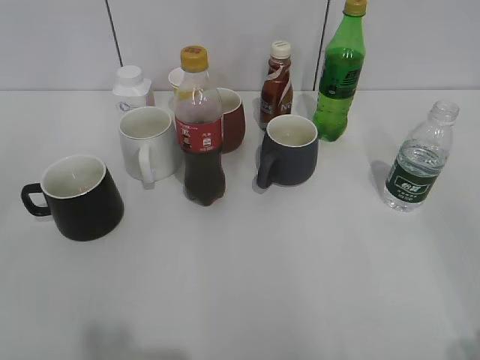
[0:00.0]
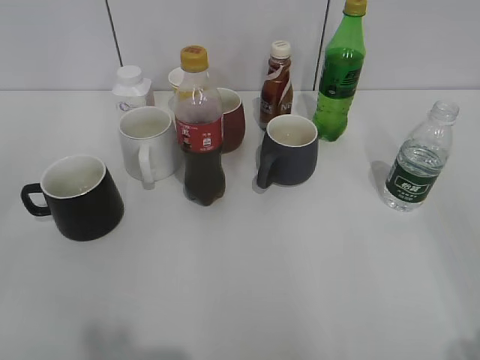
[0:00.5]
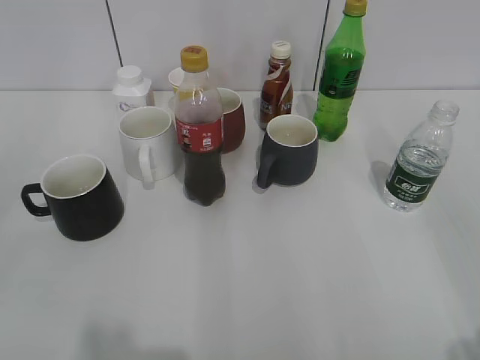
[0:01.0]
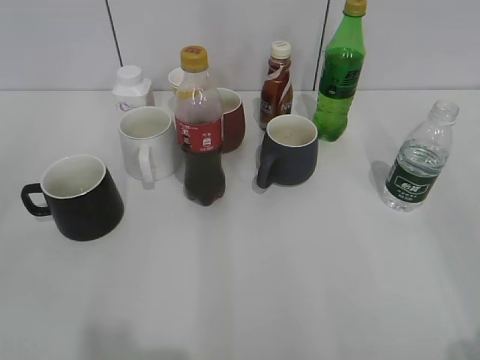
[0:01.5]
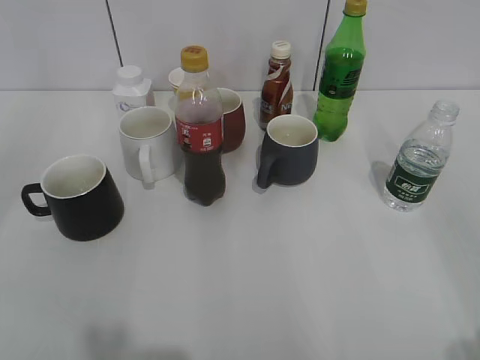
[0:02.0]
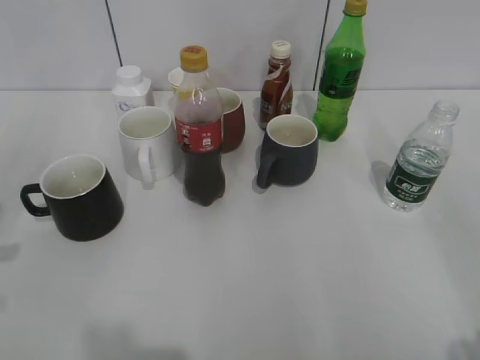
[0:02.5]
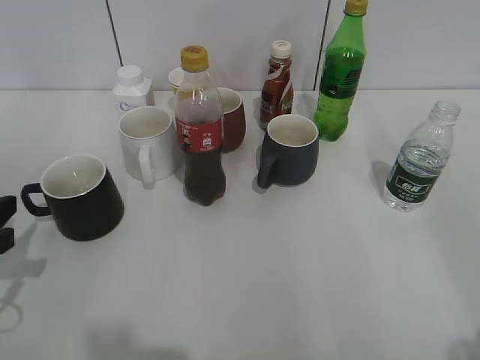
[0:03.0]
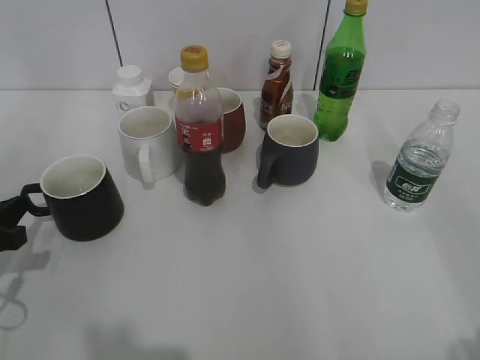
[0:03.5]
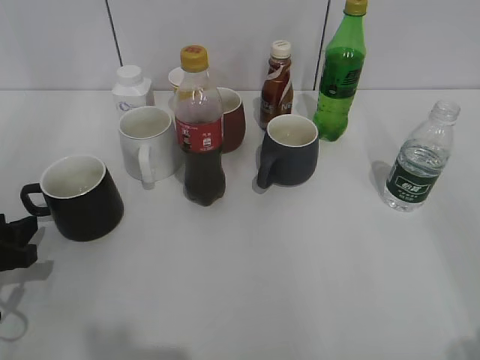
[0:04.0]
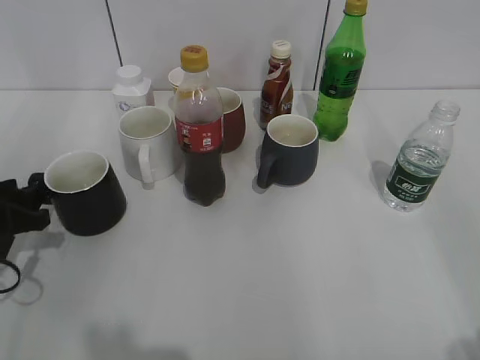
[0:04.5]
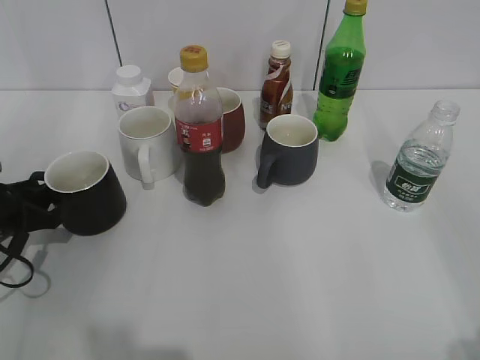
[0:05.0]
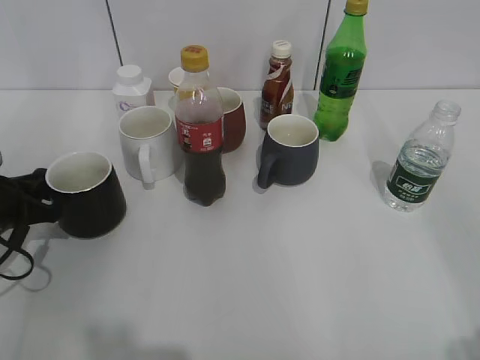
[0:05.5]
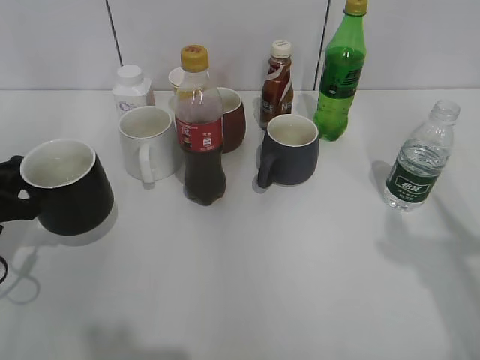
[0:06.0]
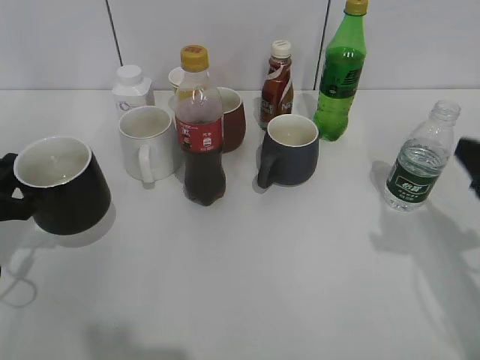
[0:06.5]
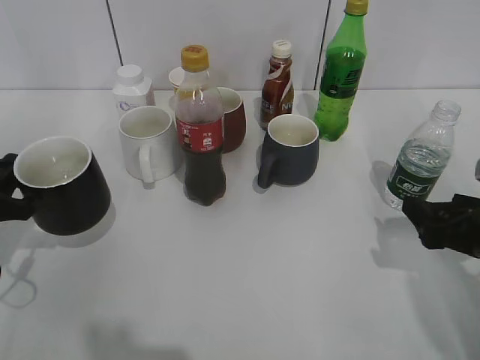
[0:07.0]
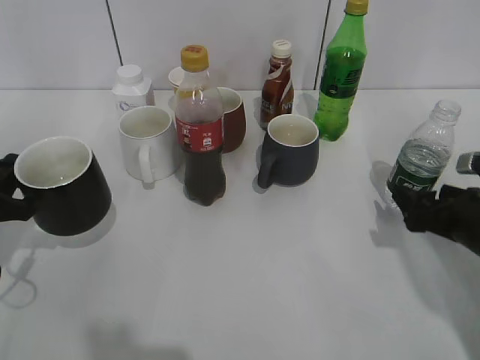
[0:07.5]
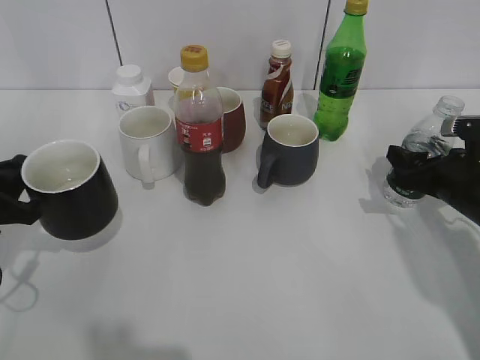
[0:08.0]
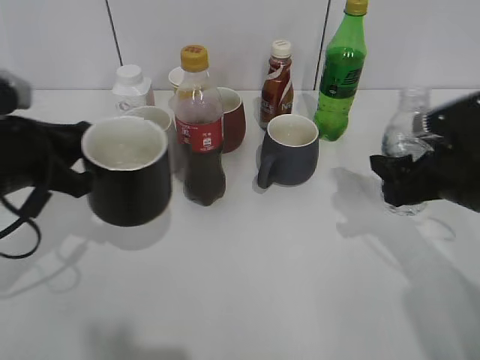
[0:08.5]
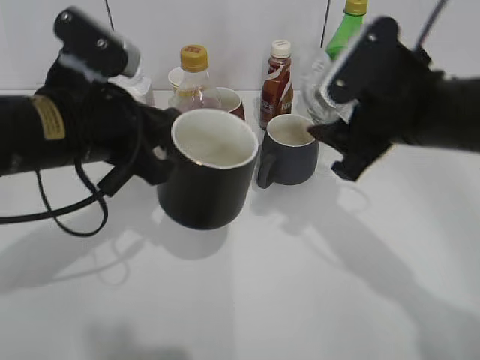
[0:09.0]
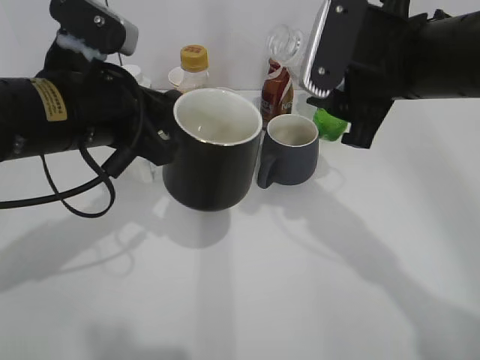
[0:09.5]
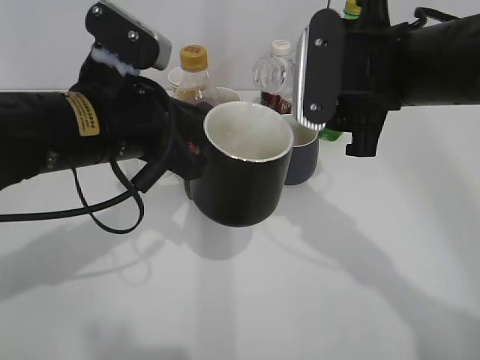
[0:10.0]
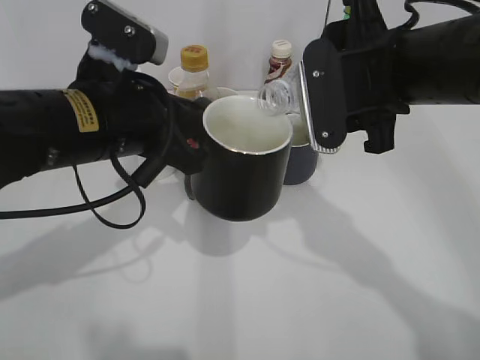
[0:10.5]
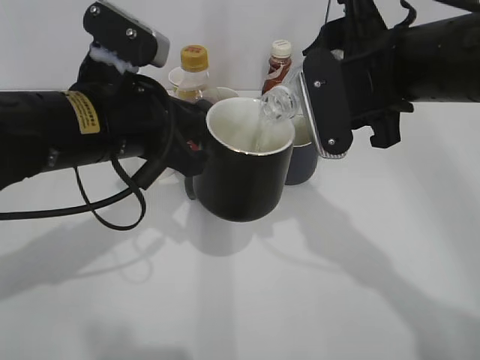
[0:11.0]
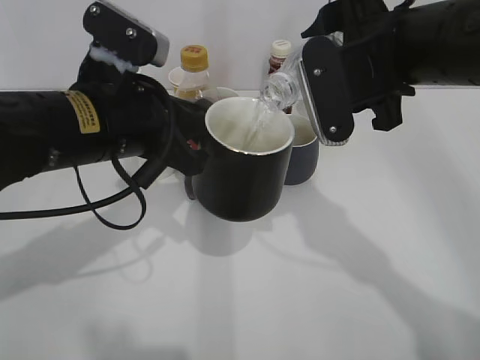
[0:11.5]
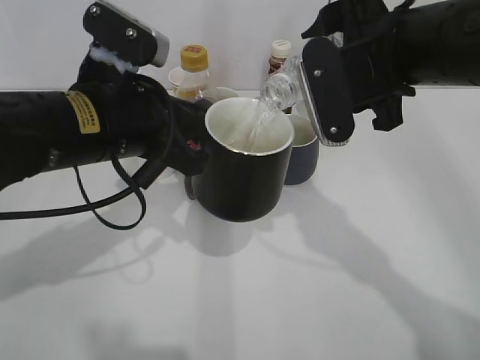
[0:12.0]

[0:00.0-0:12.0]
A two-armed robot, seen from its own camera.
Step, 0:02.0 to 0:05.0: Grasp the black cup with left gripper.
Step, 0:05.5 to 0:06.0: Lift the black cup with left gripper.
Step, 0:06.5 to 0:07.5: Grasp the bottle with water with right gripper.
0:02.0 to 0:04.0: The left gripper heads downward and forward, covering roughly 30 cm, and opens up.
0:04.0 to 0:06.0: The left gripper closes up.
0:06.0 to 0:08.0: The right gripper moves downward and forward, about 30 cm, and opens, then closes once more.
0:08.0 to 0:10.0: The right gripper is displaced upward and to the left by approximately 25 cm. Meanwhile the left gripper heads to the right and upward, covering some 20 cm.

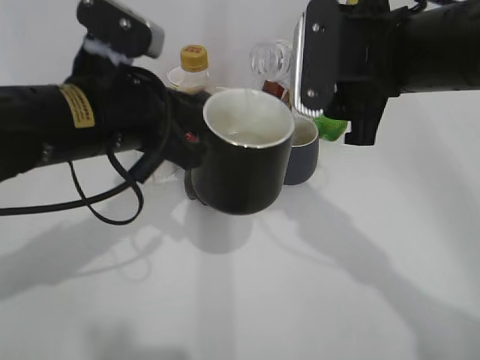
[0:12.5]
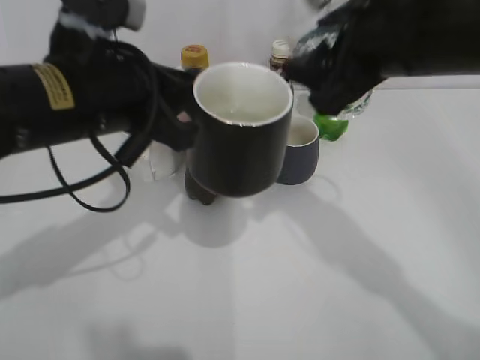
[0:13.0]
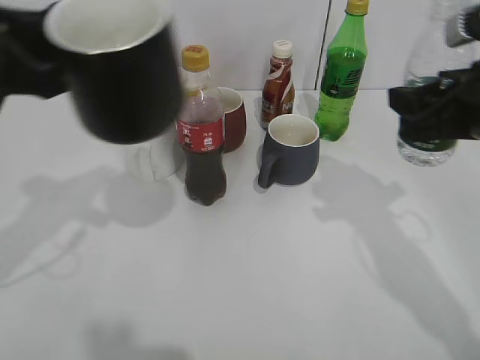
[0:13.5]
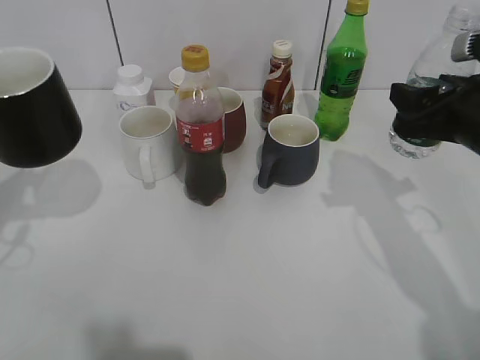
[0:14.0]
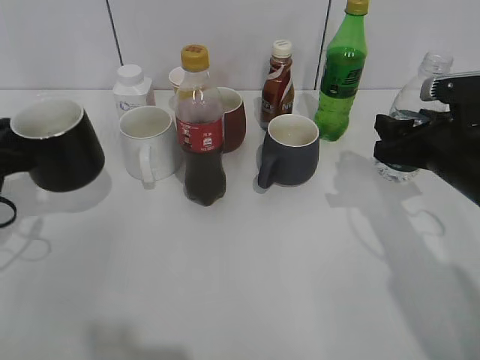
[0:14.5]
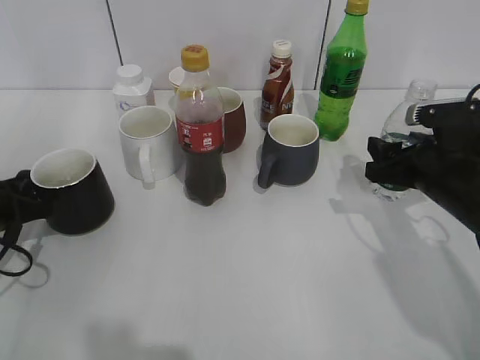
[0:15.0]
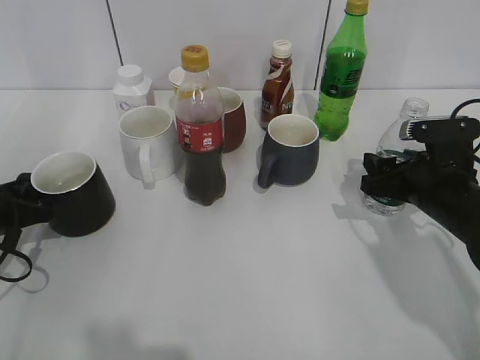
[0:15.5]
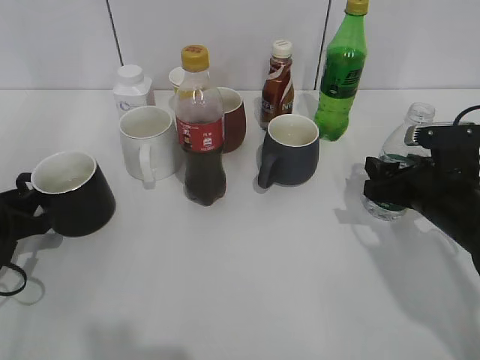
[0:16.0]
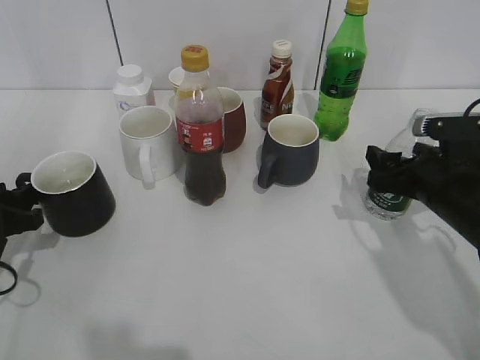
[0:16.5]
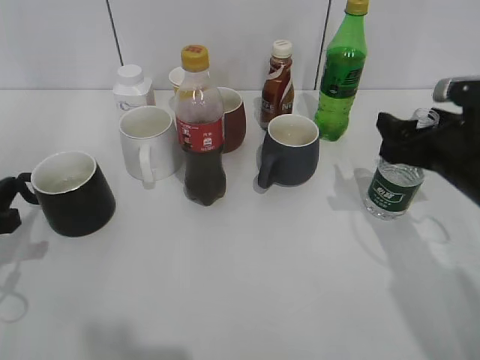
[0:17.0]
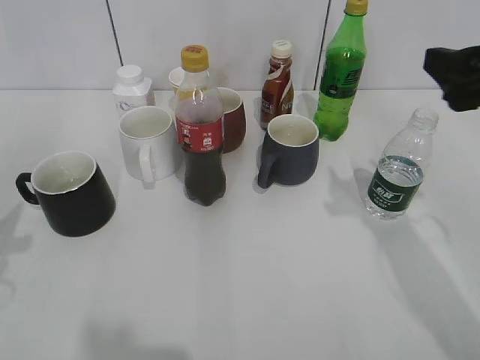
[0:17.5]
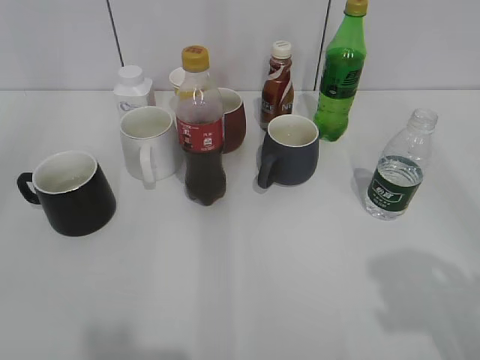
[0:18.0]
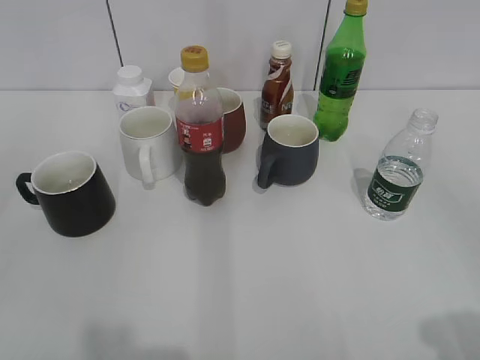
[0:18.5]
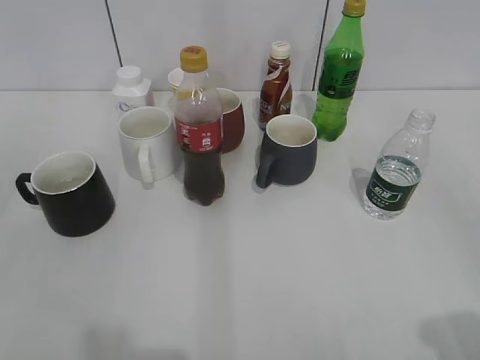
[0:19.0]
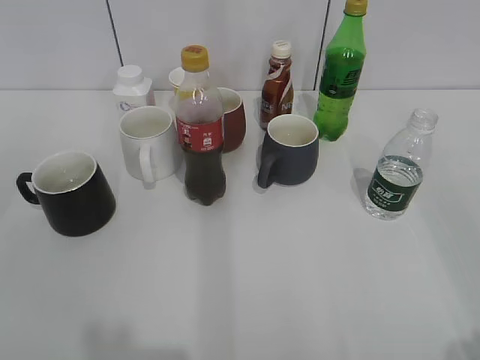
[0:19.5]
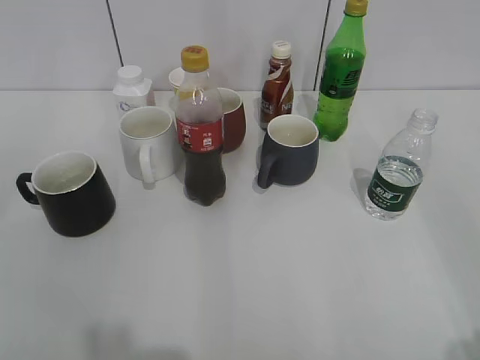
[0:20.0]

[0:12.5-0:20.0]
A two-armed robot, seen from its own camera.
Step, 0:13.0 to 0:17.0: Place the water bottle on the table with right gripper.
0:12.5 to 0:14.5: The right gripper is displaced downward and to the right by approximately 15 cm. The left gripper is displaced to the left and downward by some 20 cm.
0:14.5 to 0:16.5: The right gripper opens its fingers. Meanwhile the left gripper moves downward, roughly 5 cm, and opens up.
0:16.5 to 0:18.0: The two grippers go approximately 30 cm upward and backward.
0:18.0 to 0:20.0: The right gripper is displaced backward by about 10 cm.

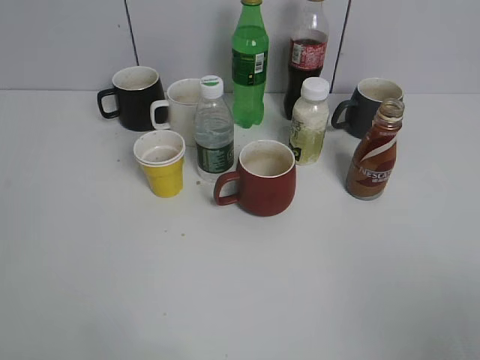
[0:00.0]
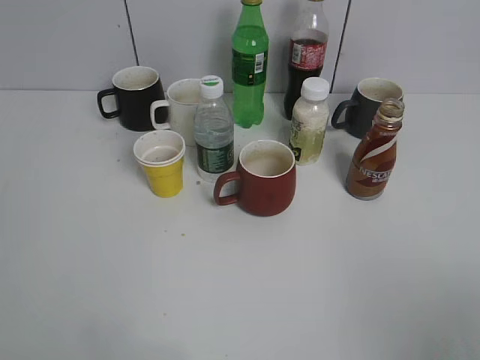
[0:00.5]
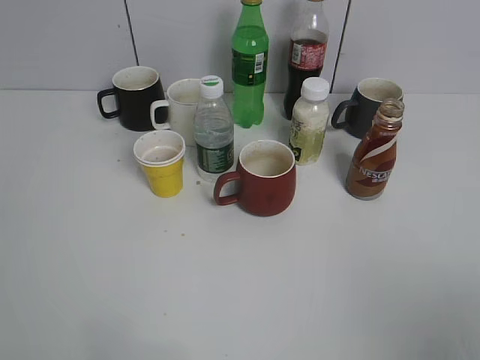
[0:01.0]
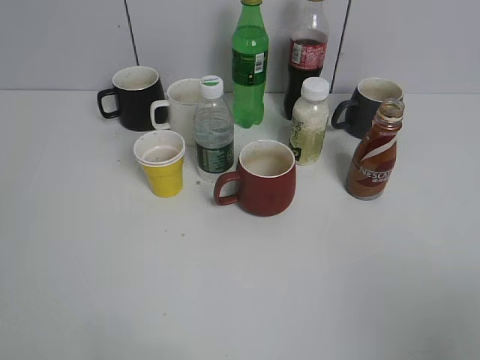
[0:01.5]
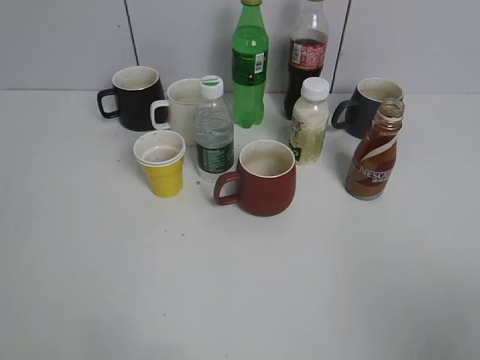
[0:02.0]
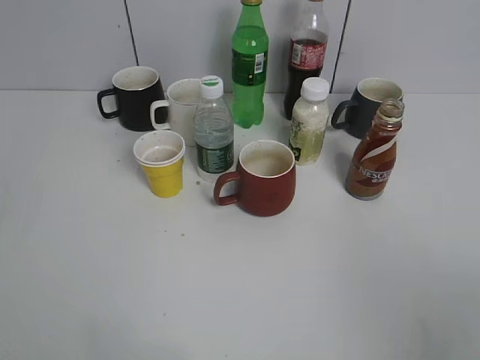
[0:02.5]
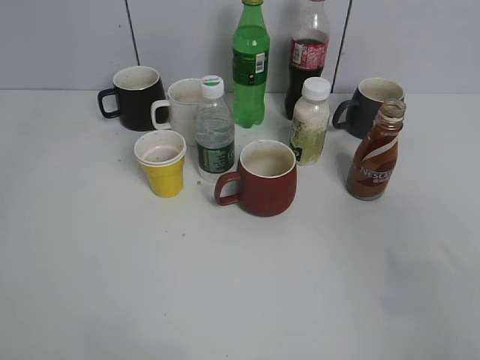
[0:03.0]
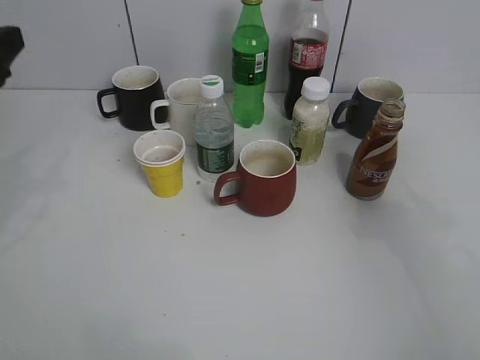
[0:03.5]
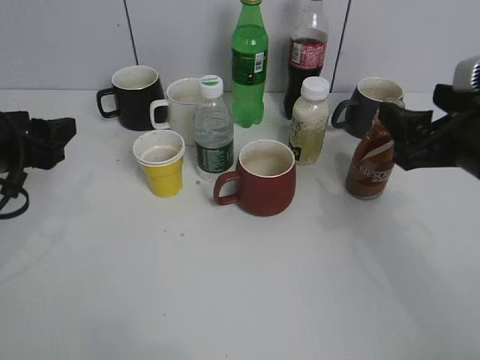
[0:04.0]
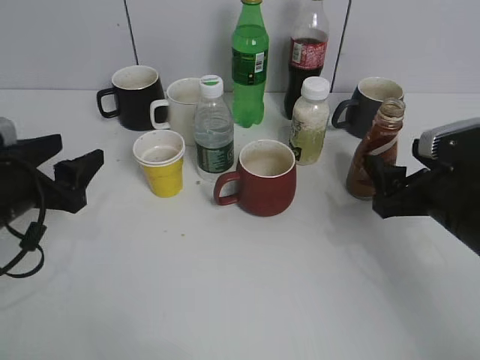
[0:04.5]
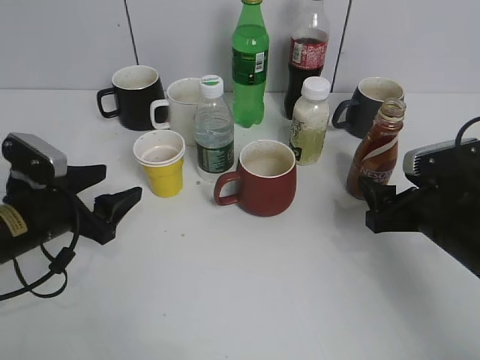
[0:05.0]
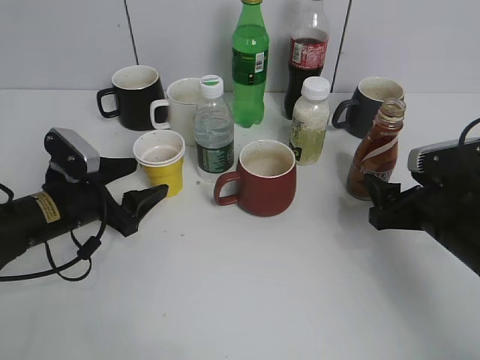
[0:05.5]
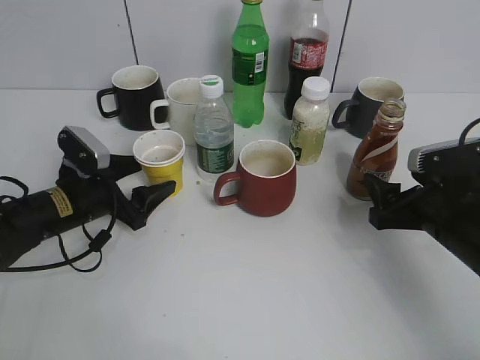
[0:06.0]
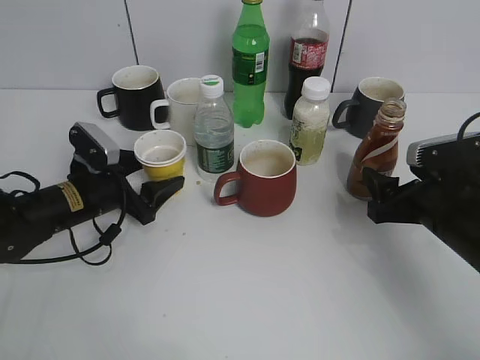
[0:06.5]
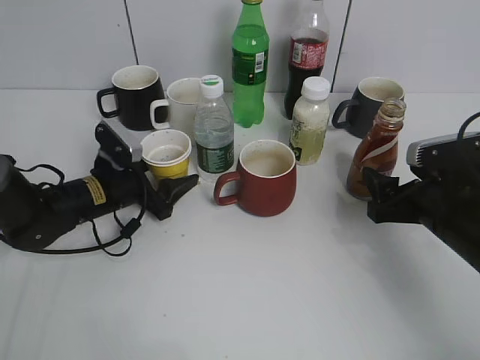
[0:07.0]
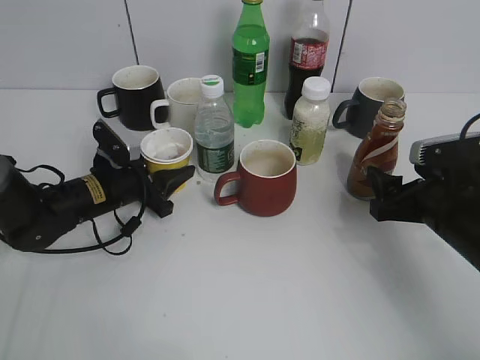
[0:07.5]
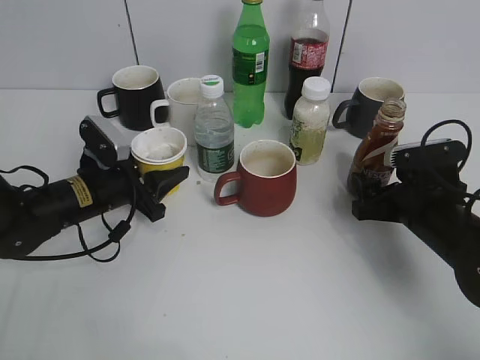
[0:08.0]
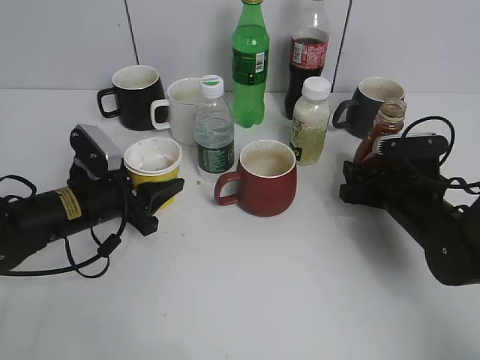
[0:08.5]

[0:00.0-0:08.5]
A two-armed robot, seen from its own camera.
Step, 0:02.0 to 0:06.0: Grasp the yellow paper cup with left gripper.
0:02.0 to 0:04.0: Both grippers travel together forward, about 25 cm.
0:04.0 to 0:06.5: The left gripper goes approximately 15 cm downward, forward and to the right, while the right gripper moves downward, approximately 10 cm.
0:06.5 to 0:08.5: The left gripper closes its fingers. Meanwhile the right gripper is displaced forward and downward by approximately 10 cm.
